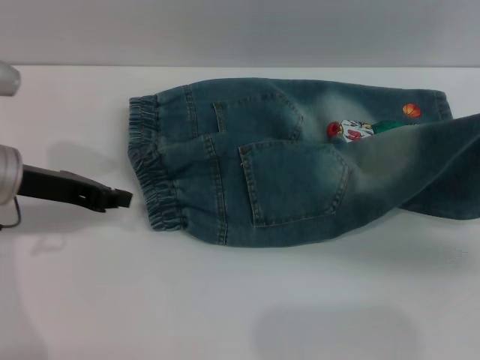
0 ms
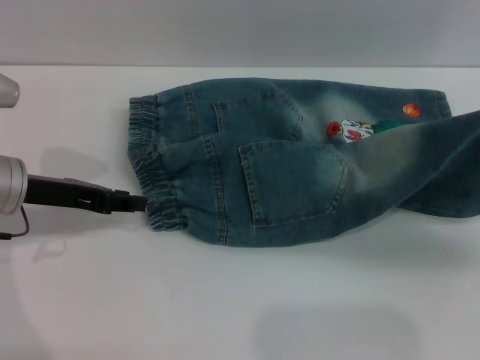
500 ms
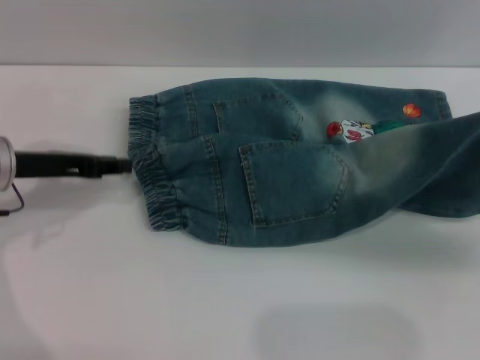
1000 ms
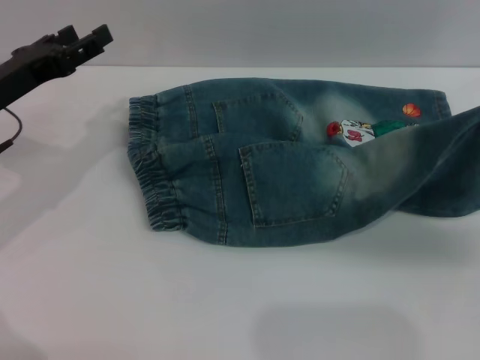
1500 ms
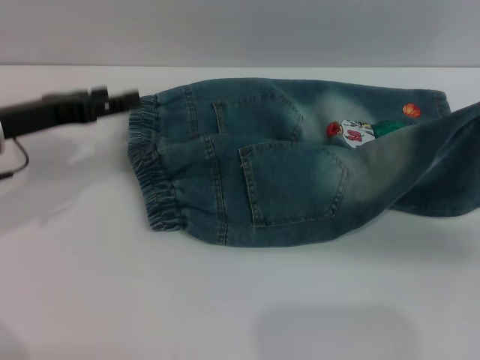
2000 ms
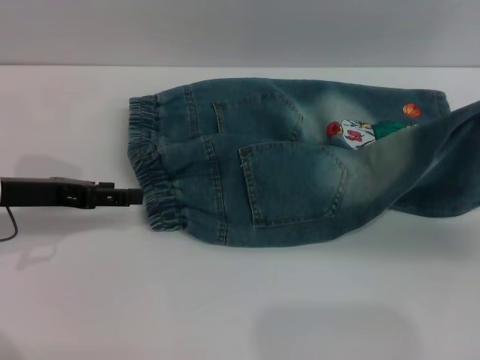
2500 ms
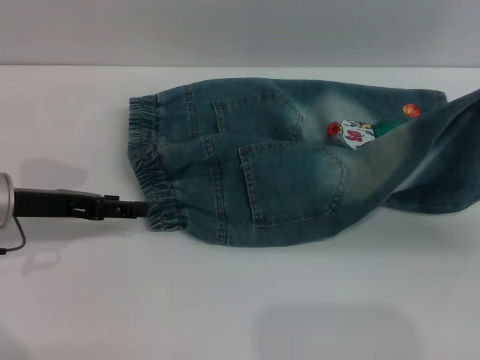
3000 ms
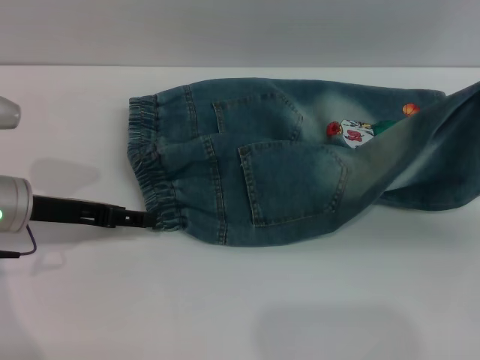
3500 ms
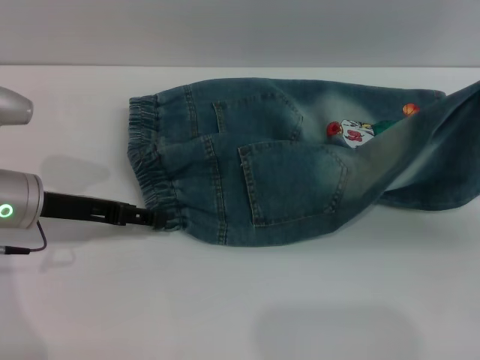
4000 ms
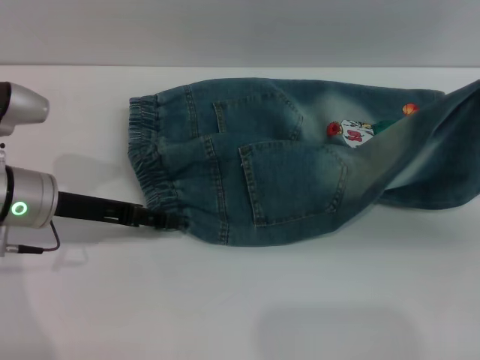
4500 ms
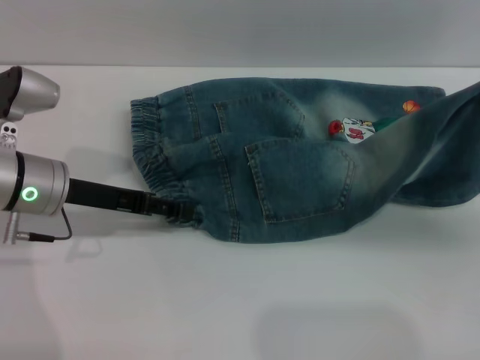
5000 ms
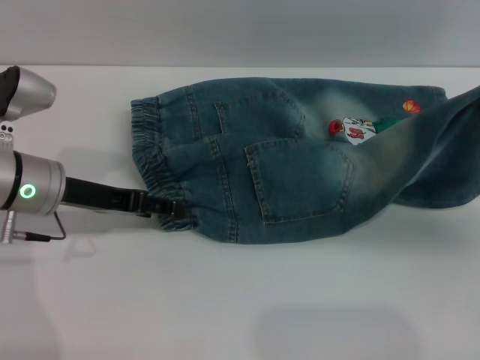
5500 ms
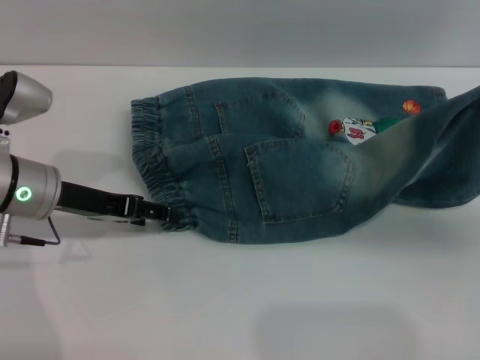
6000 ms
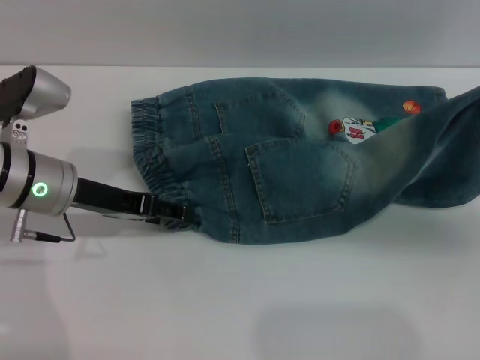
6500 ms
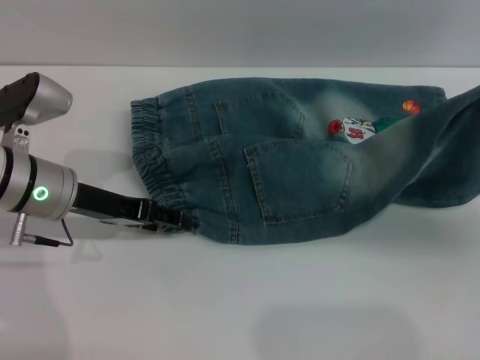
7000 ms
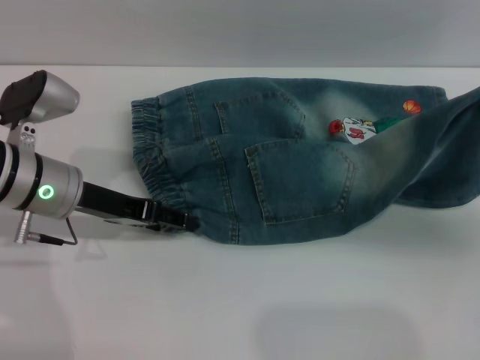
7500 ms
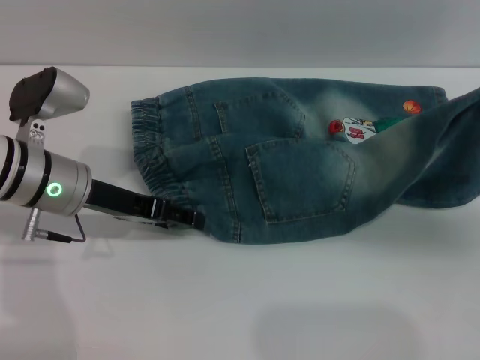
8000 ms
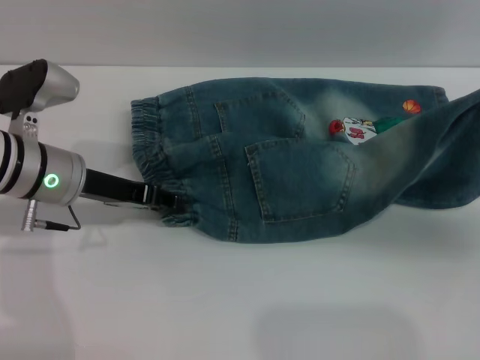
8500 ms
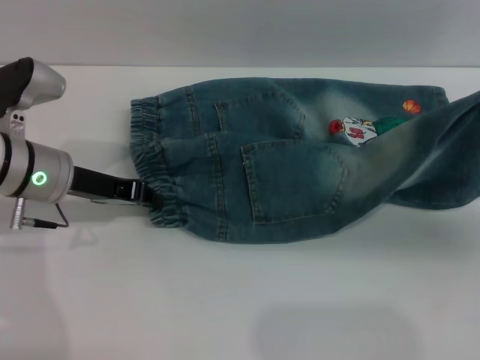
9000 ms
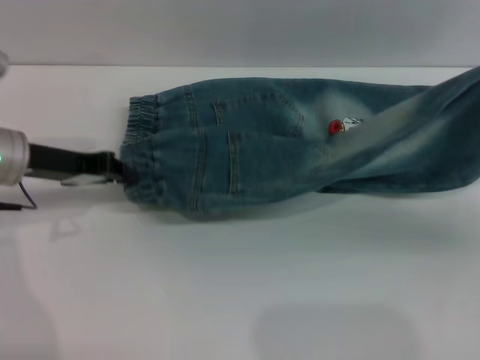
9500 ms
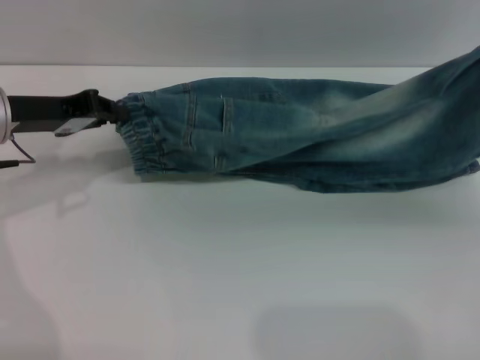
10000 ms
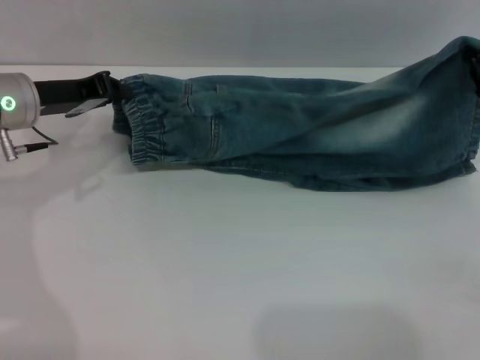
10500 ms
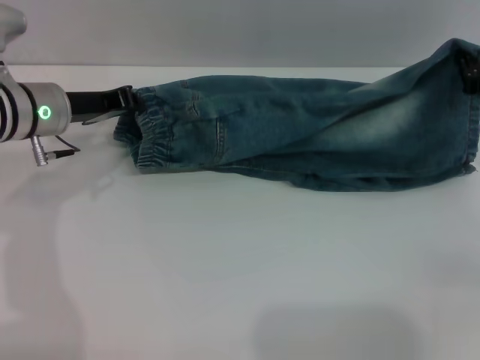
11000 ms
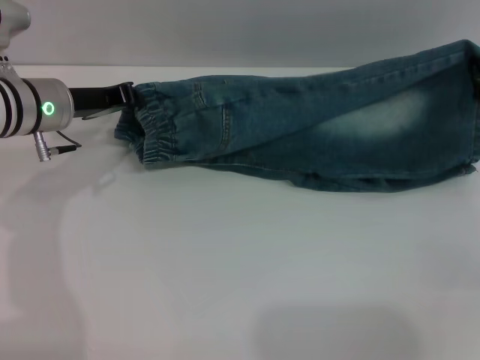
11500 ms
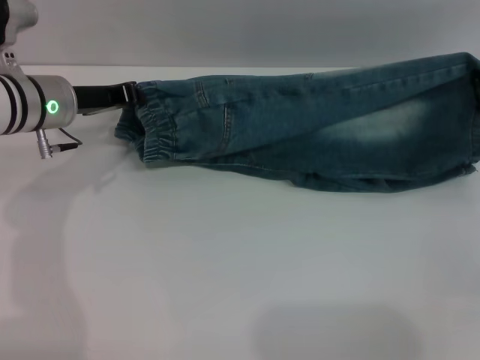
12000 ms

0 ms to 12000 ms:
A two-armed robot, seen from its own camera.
0 ms to 2000 ms: The left gripper opens its fingers.
2000 ms to 4000 ms: The left gripper changes place by some 5 cm.
4000 ms to 8000 ms: The grippers make only small movements.
8000 ms to 10000 ms: The left gripper goes about 5 cm to the left, and closes up.
10000 ms to 12000 ms: The right gripper shifts roughly 5 cm forward. The left gripper heads to the right, covering approximately 5 cm.

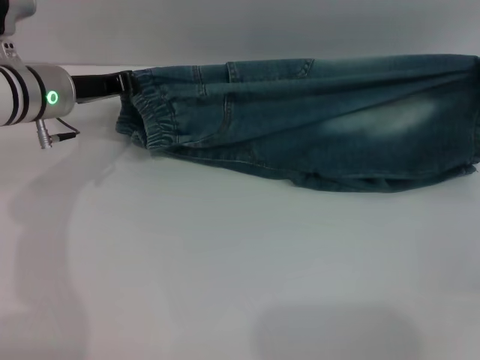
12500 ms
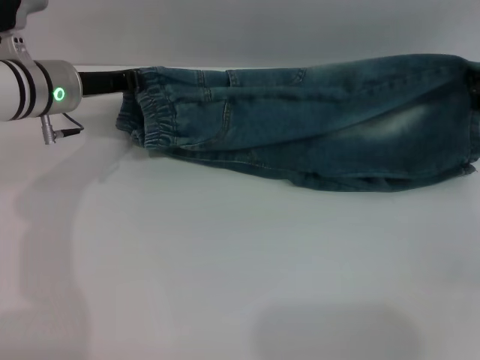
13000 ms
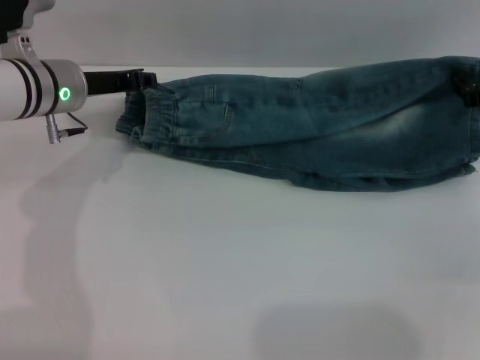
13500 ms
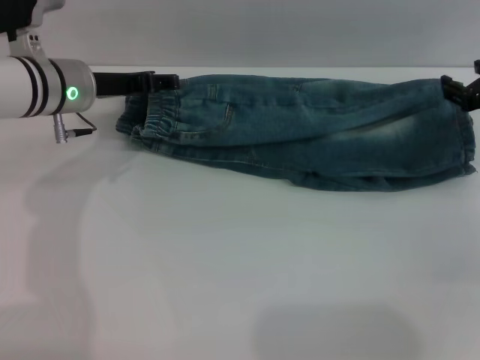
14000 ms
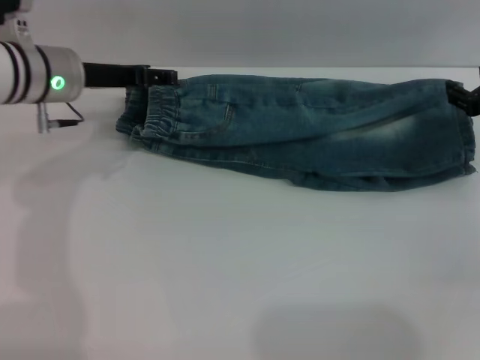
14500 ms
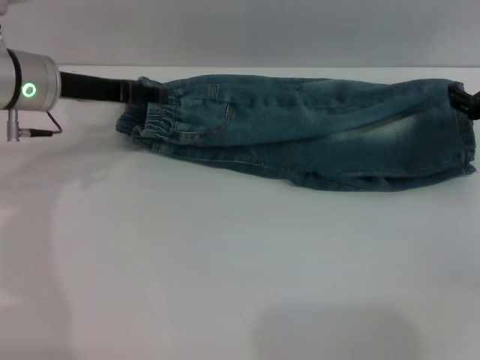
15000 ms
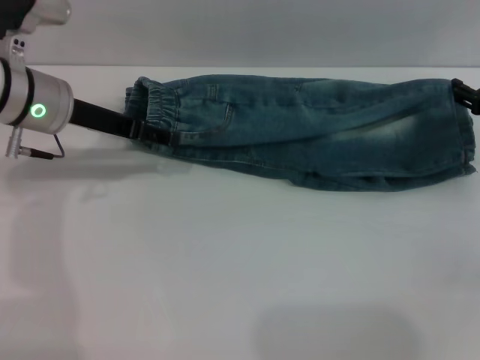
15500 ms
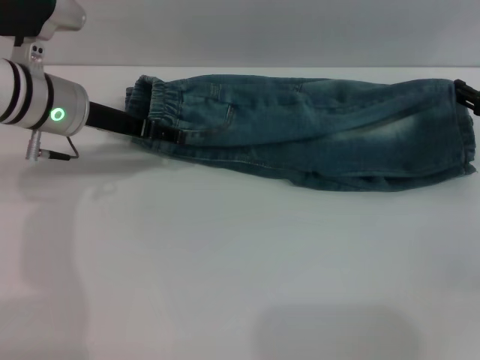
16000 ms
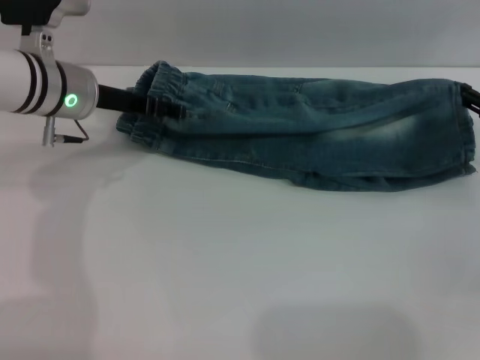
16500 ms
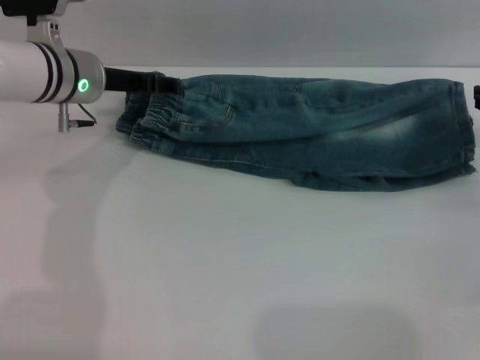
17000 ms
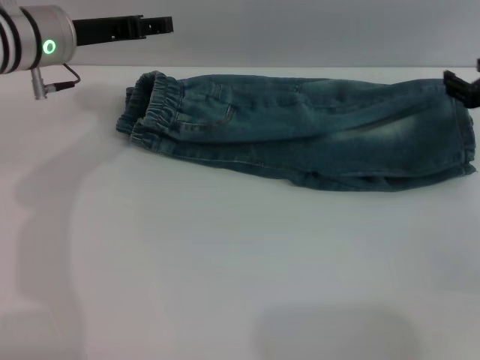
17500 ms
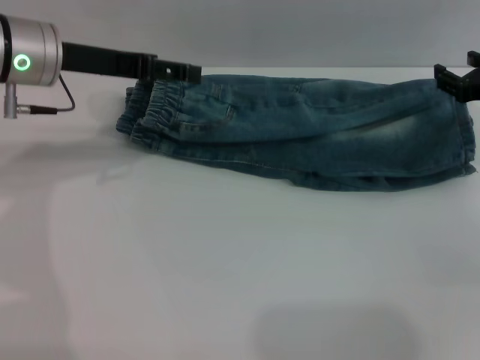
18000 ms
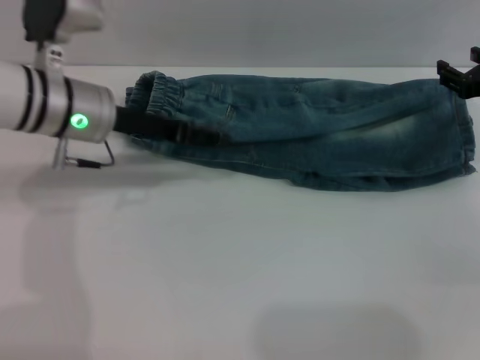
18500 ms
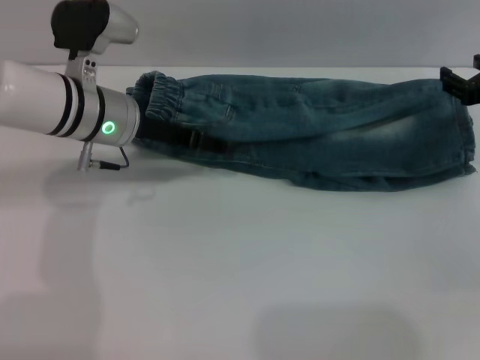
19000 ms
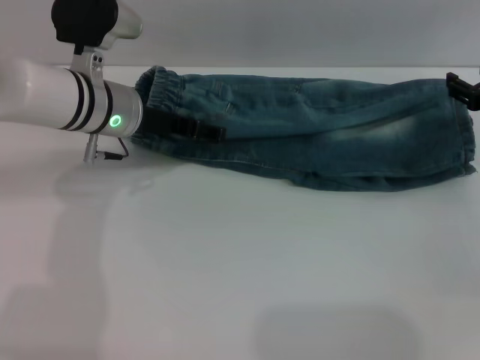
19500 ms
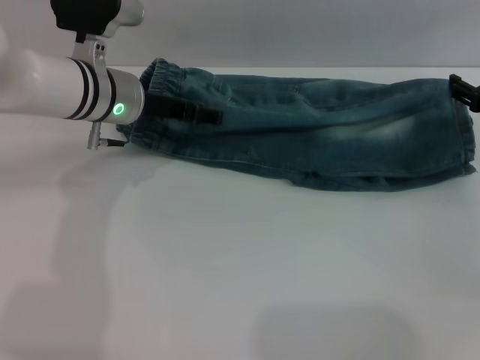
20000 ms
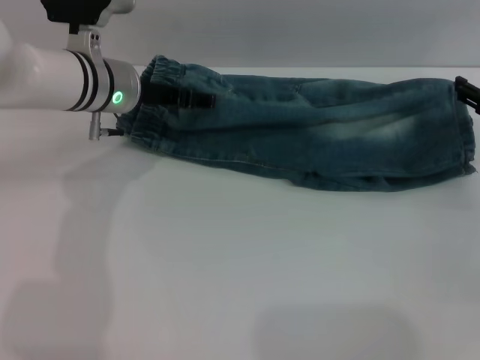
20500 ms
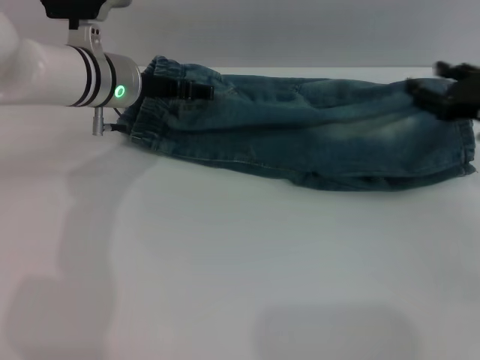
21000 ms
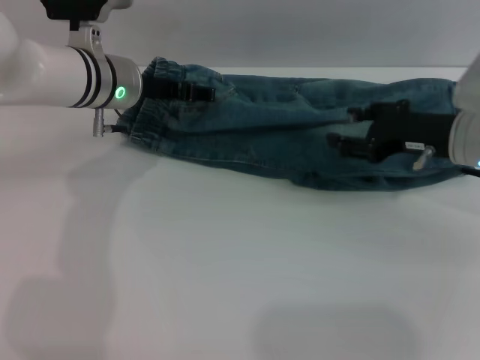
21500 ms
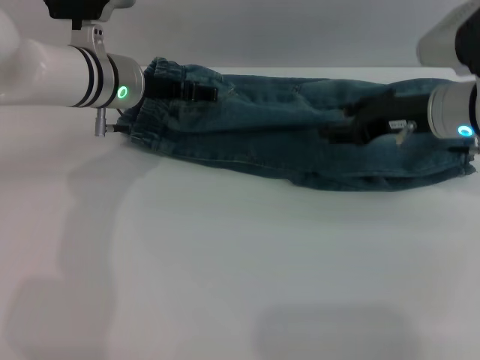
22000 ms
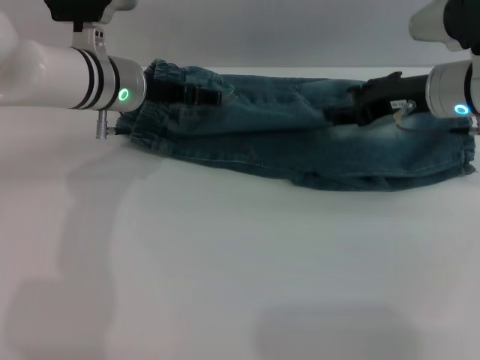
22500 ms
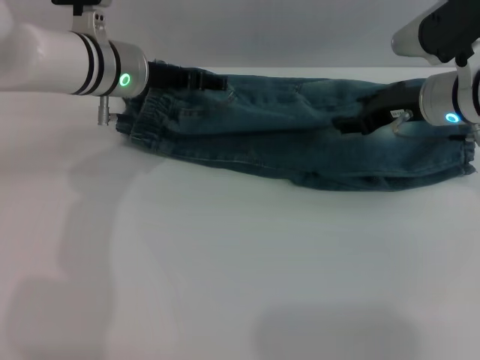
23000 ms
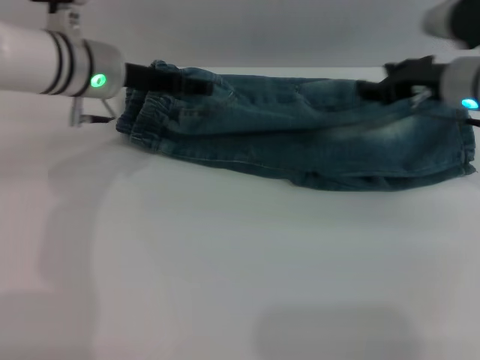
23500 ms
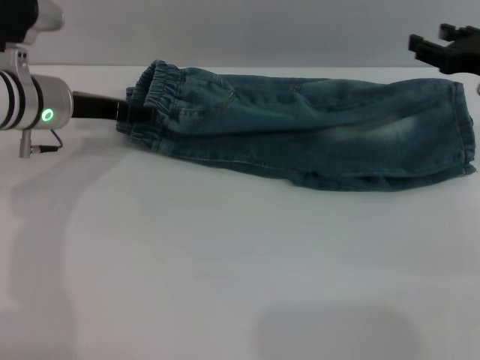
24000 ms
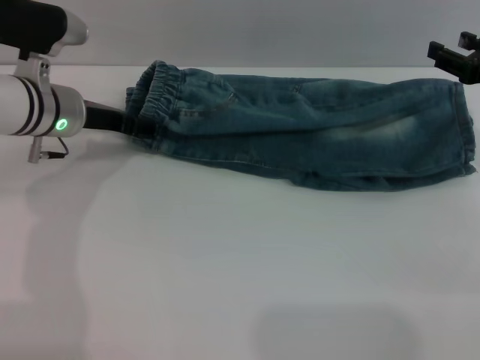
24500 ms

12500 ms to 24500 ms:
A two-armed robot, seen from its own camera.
Step, 12500 ms to 17500 ms: Fold the bottom of the pants upward with both grippers.
12500 ms to 14500 ms: The left gripper opens. Meanwhile the right gripper opens up.
14500 ms to 16500 ms: The grippers make only small movements.
20500 ms to 22500 ms: The right gripper heads to the left, covering roughly 10 cm.
22500 ms to 24500 ms: The right gripper moves to the right, some 10 cm; the left gripper travels to the left by roughly 5 cm.

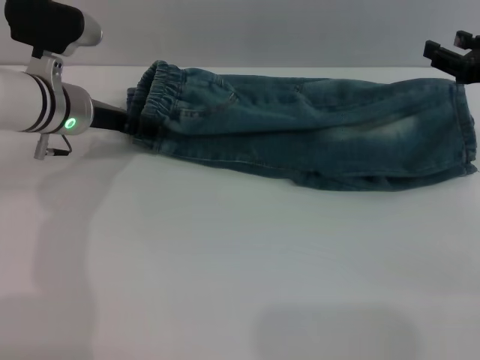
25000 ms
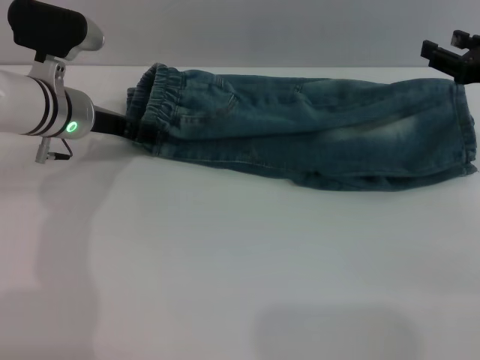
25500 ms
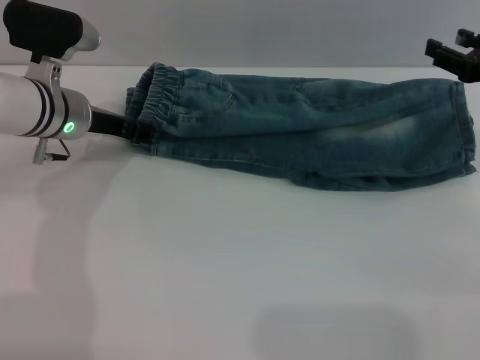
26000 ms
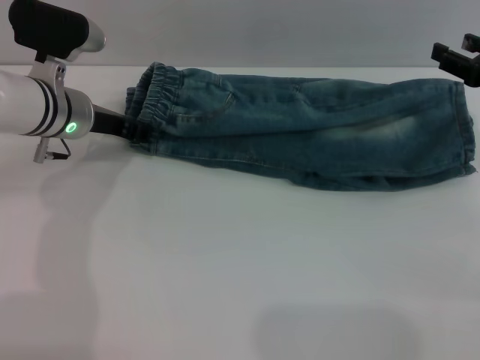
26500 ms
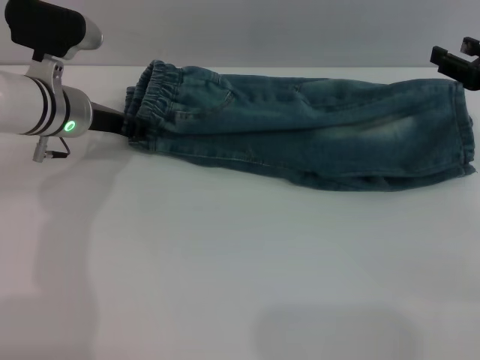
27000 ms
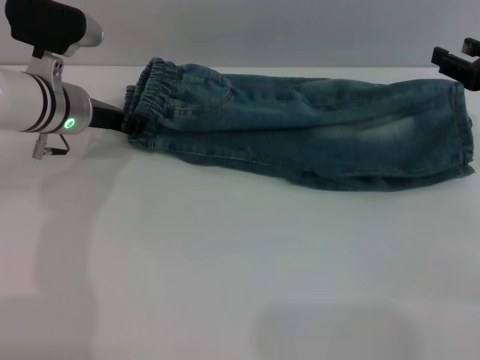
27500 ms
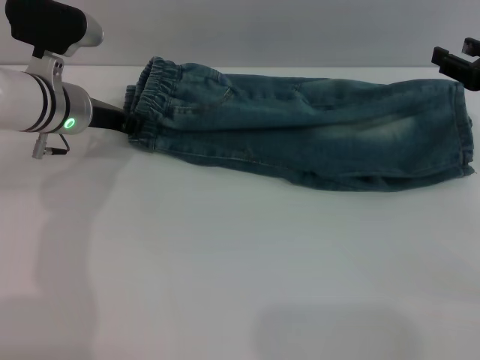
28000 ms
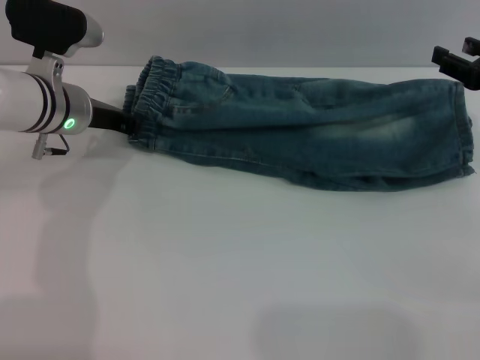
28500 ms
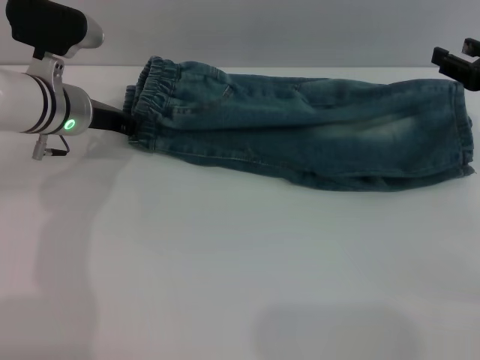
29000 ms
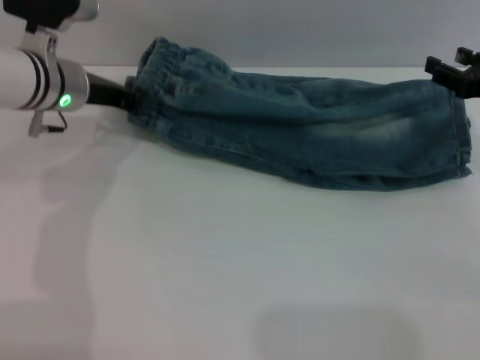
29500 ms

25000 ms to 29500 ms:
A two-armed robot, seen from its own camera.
25000 ms to 27000 ms: The left gripper closes its fingers.
27000 ms to 29500 ms: The left gripper closes up.
